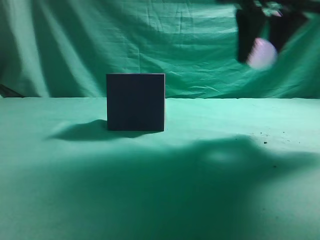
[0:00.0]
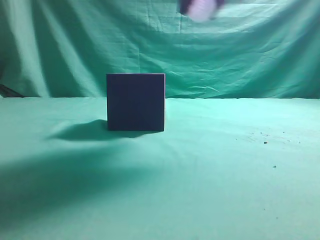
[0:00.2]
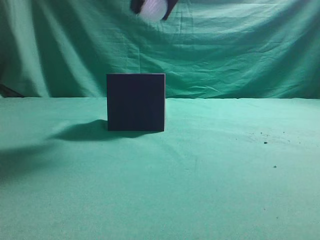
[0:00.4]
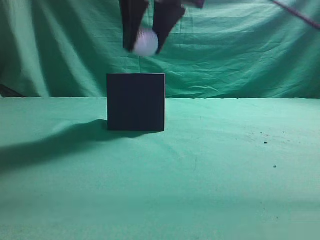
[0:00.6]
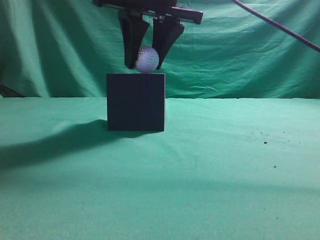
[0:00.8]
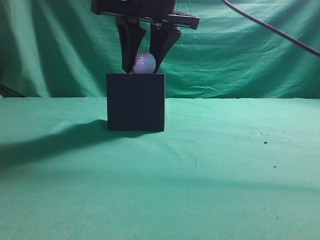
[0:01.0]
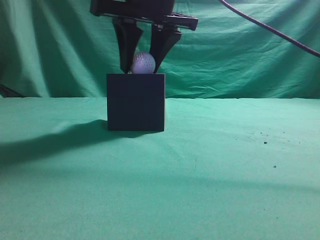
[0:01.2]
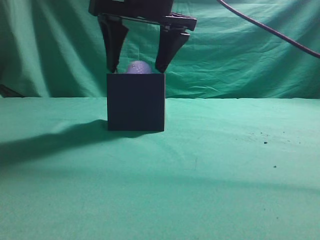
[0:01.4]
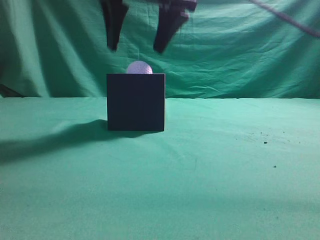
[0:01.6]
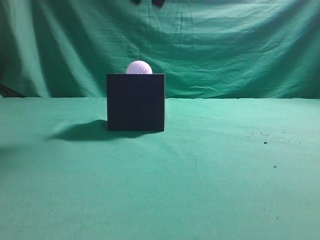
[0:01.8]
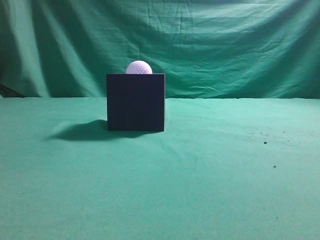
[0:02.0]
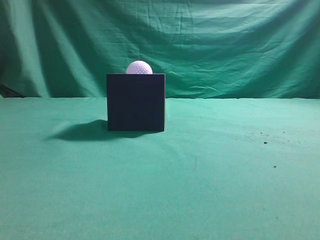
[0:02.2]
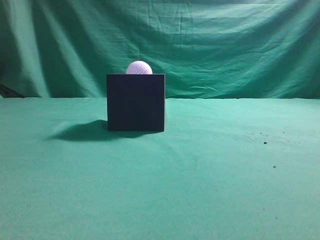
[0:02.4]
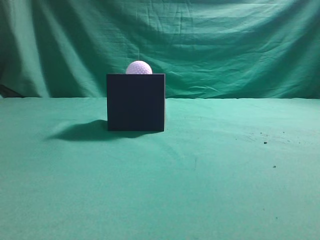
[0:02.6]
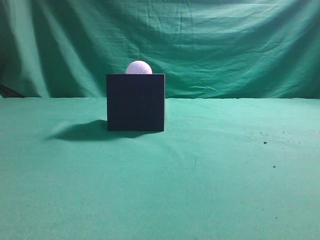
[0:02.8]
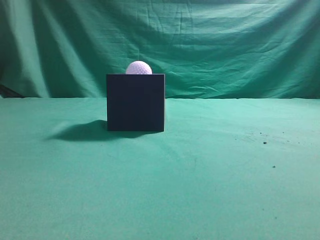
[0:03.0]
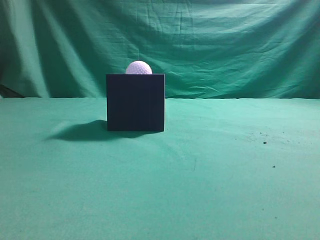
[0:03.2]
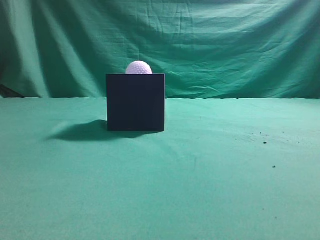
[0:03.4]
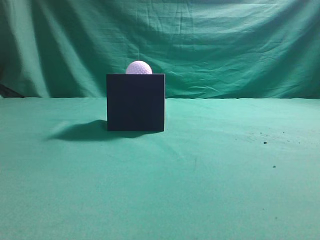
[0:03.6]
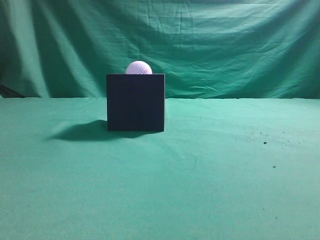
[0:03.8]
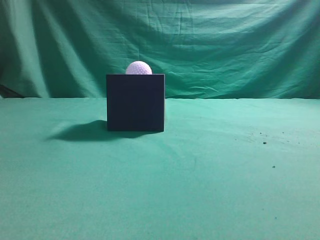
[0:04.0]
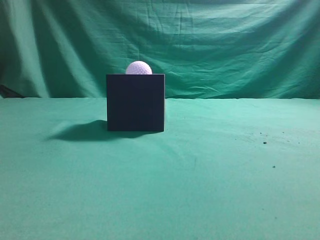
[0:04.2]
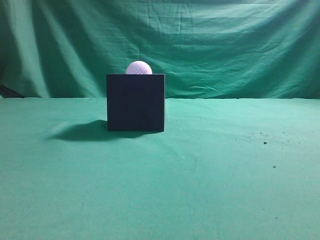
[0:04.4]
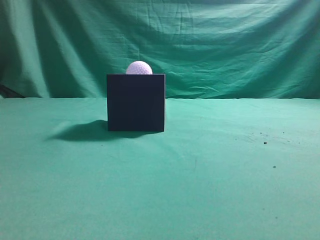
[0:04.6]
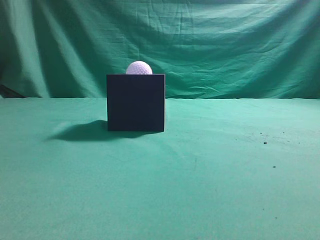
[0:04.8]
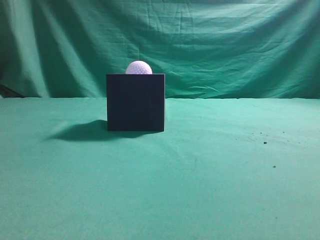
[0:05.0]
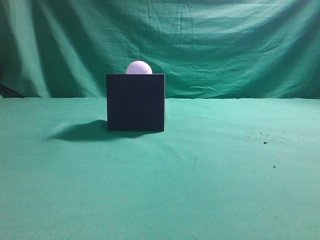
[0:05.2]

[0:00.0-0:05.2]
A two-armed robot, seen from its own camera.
Task of the whole recording: Pick up the ball and place it in the circular groove above the cube.
Step, 0:00.0 to 0:01.4: Place the sphere into the sphere-shaped recess.
0:00.0 to 0:01.8: The right gripper heads to the left and upward, covering some 15 cm, and opens, then closes once more.
